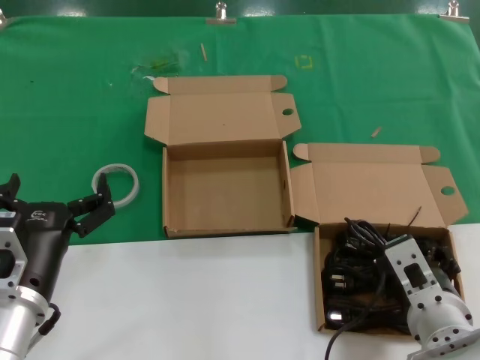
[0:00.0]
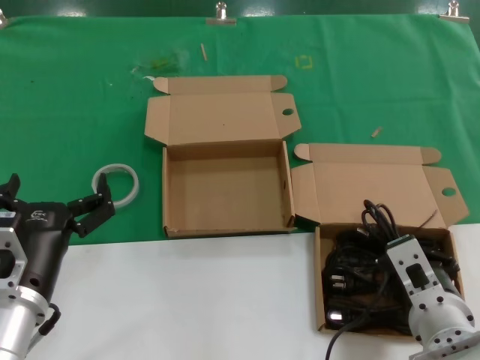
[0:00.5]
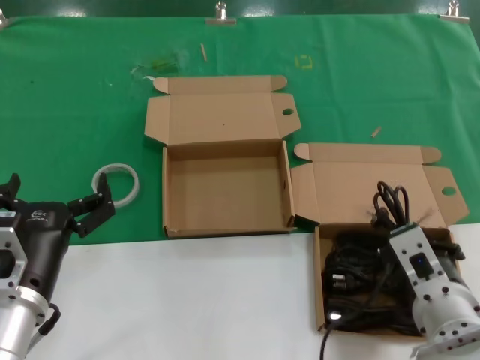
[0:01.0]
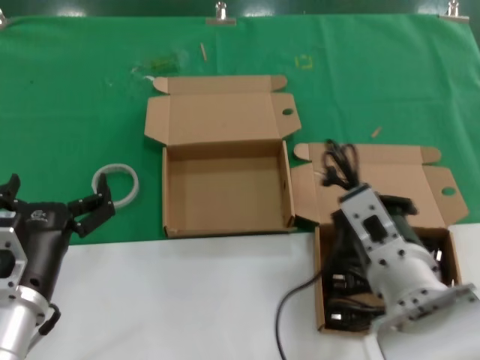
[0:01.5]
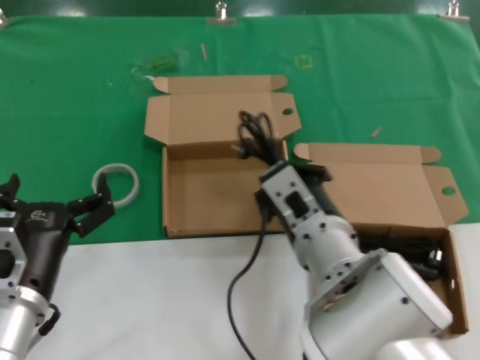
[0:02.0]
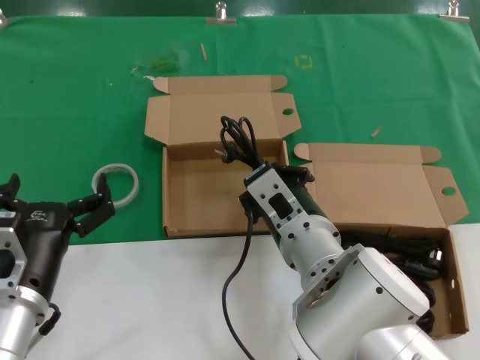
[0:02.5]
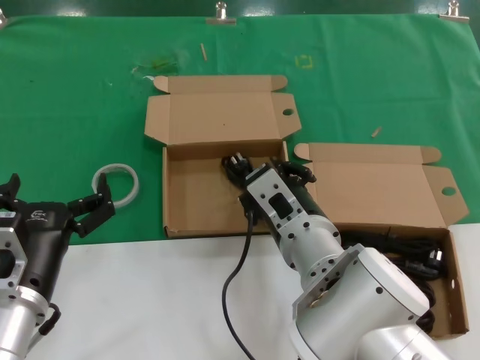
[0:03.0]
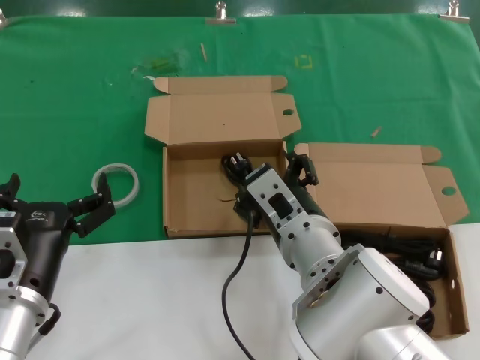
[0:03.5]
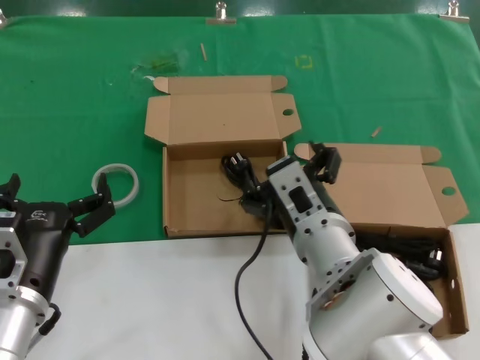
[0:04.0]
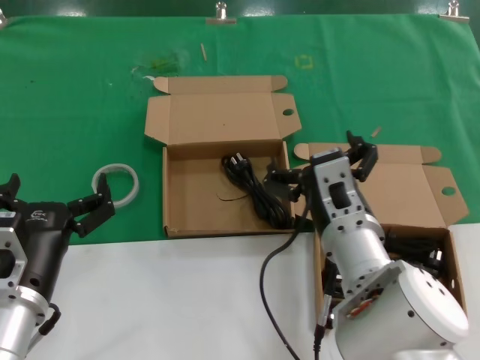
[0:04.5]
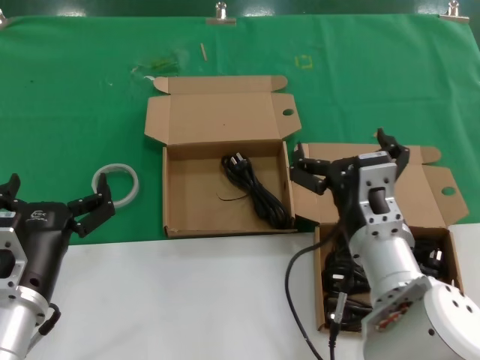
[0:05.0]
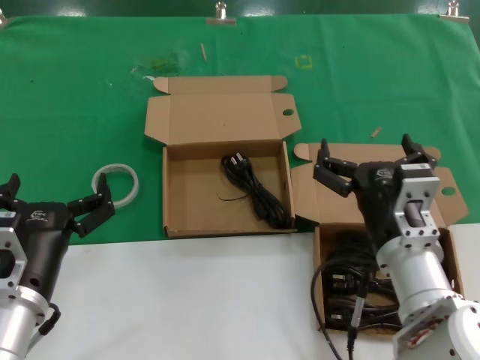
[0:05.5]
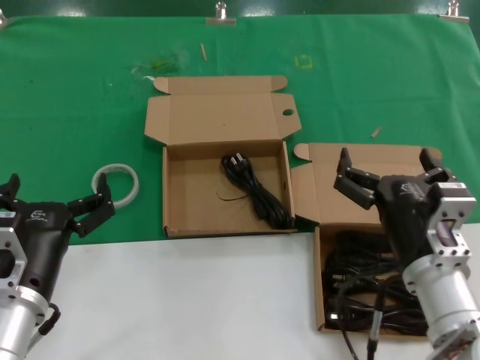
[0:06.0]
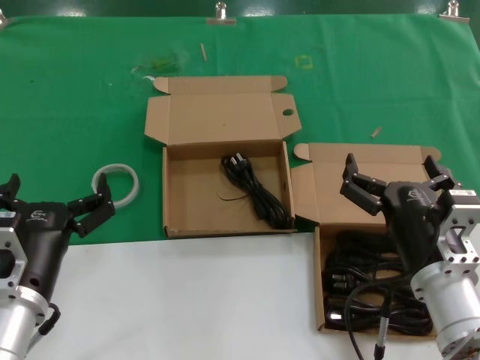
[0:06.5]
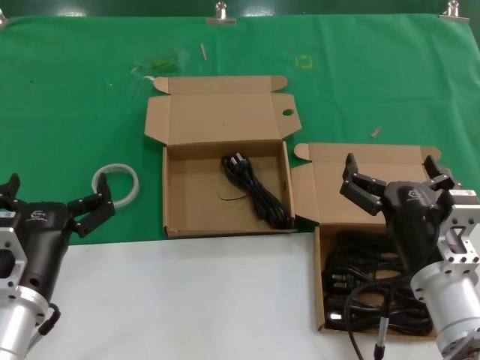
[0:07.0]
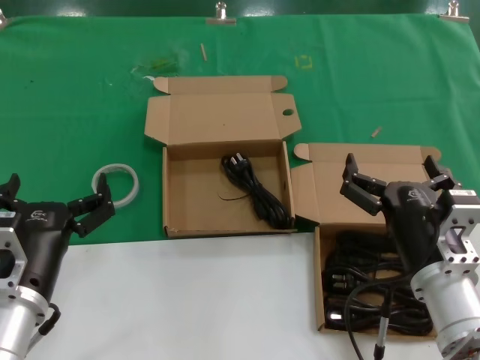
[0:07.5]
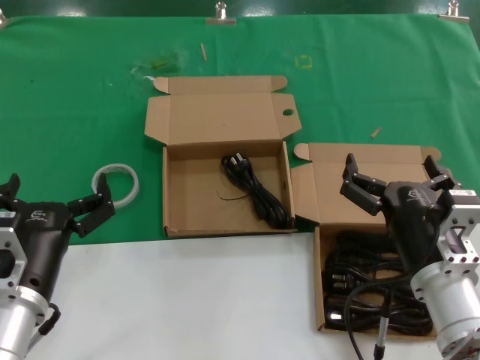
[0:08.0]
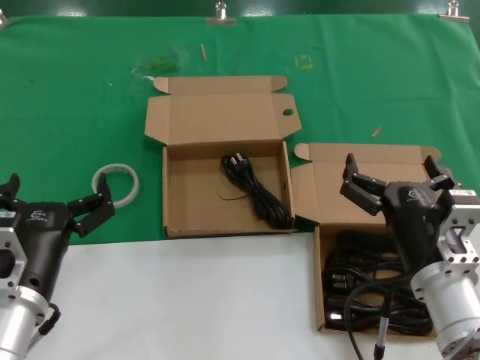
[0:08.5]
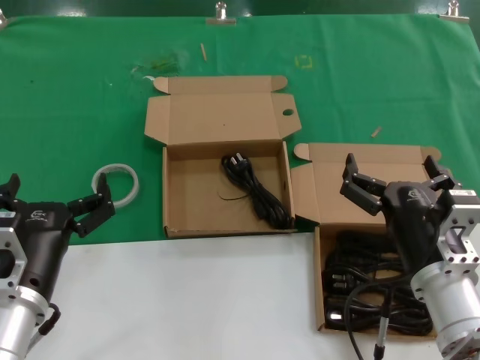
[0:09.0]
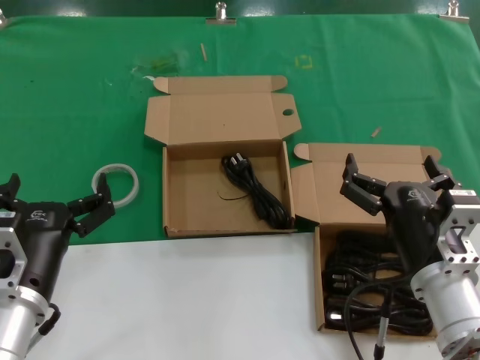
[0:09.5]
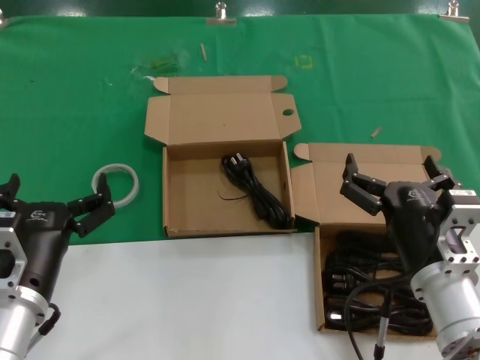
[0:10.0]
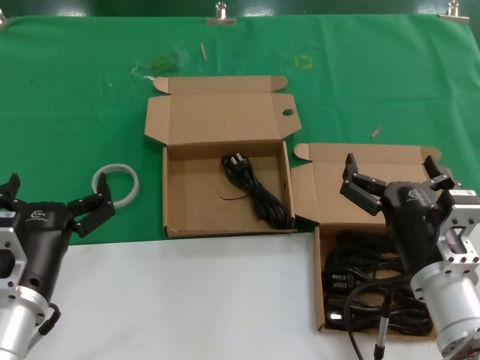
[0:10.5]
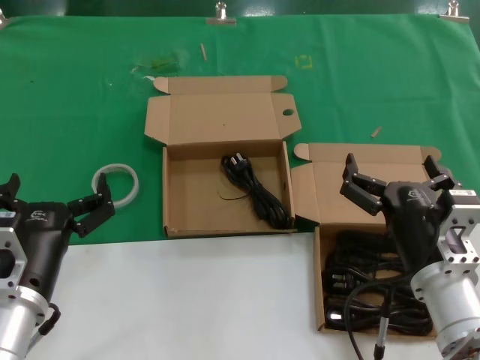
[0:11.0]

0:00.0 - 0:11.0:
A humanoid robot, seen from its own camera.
Task of the whole recording: take the parts from the box containing them and put them into an empty box.
Step, 0:00.5 - 0:03.0: Place the data cable in the another box.
0:00.0 - 0:02.0: The right hand shifts roughly 15 cm to the left and upward.
0:02.0 - 0:03.5: The hands stay close to where they were, moving slightly.
0:03.5 - 0:05.5: The right hand is displaced to the right by approximately 10 cm.
0:05.5 - 0:07.5: The right hand changes place by approximately 5 cm.
0:07.5 - 0:11.0: Neither hand changes place.
